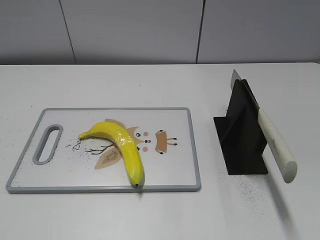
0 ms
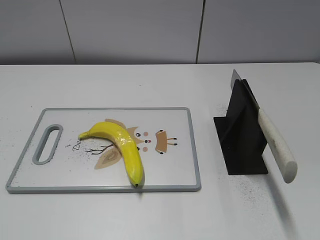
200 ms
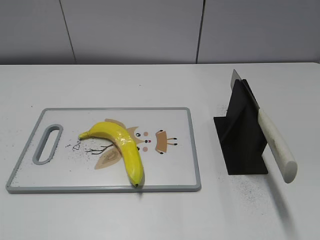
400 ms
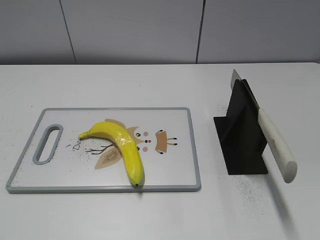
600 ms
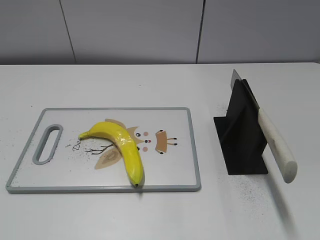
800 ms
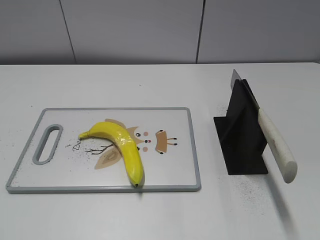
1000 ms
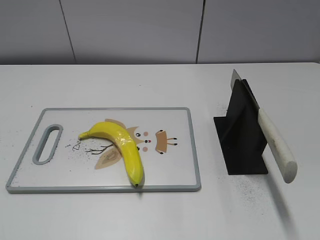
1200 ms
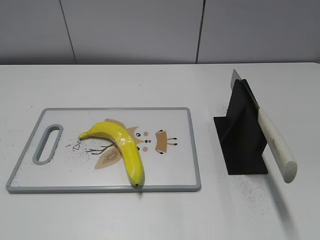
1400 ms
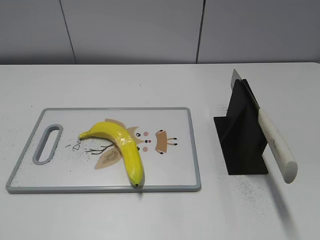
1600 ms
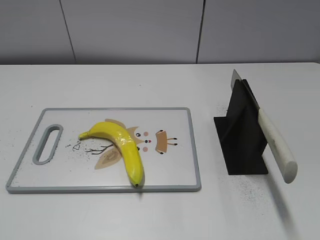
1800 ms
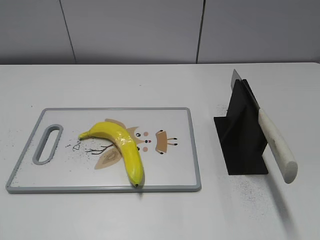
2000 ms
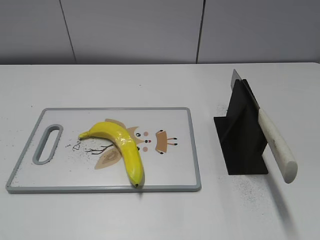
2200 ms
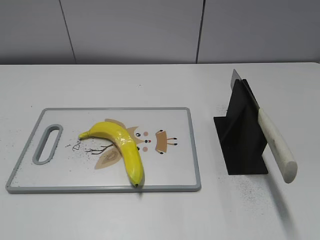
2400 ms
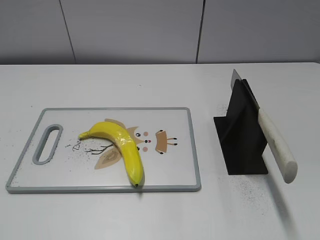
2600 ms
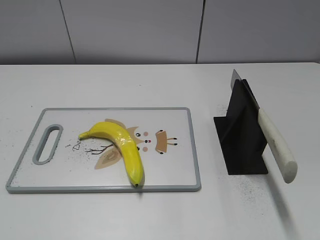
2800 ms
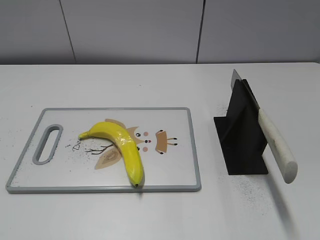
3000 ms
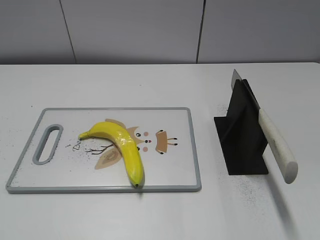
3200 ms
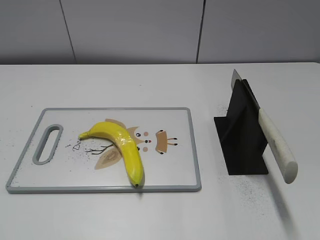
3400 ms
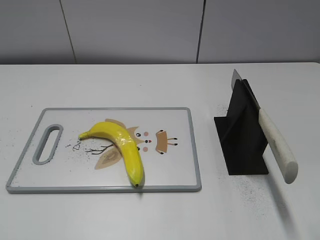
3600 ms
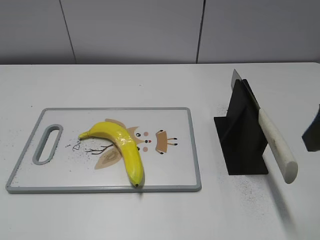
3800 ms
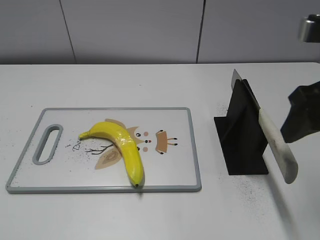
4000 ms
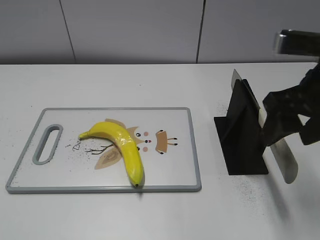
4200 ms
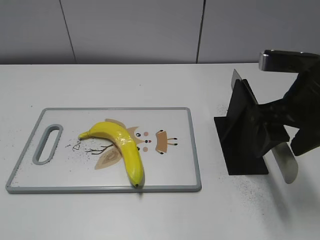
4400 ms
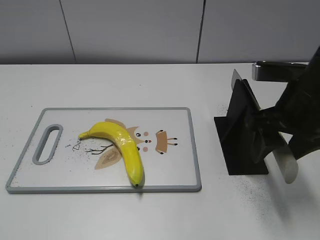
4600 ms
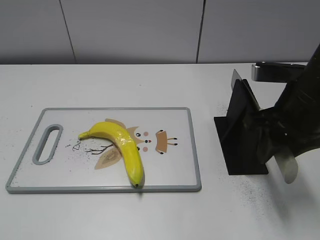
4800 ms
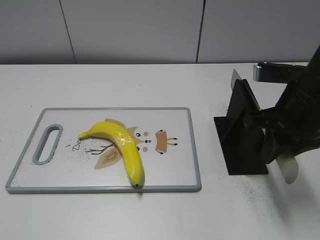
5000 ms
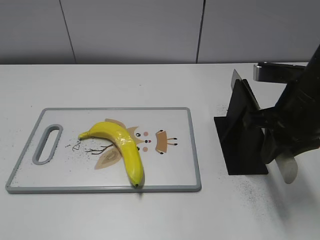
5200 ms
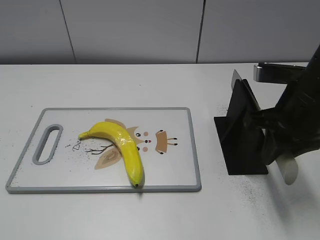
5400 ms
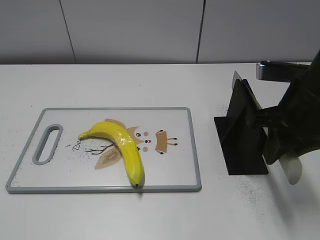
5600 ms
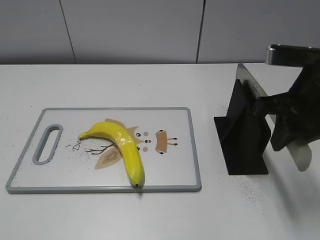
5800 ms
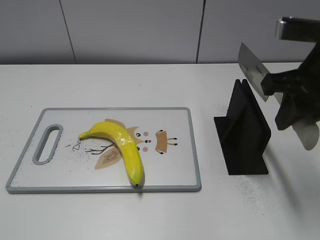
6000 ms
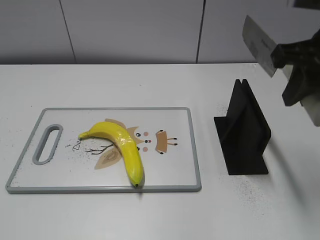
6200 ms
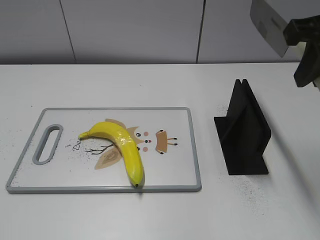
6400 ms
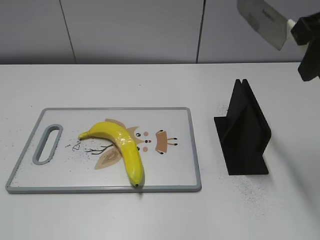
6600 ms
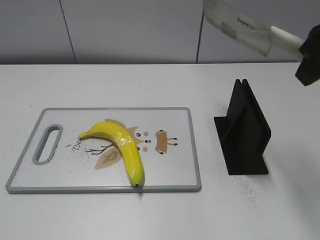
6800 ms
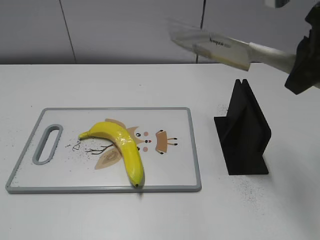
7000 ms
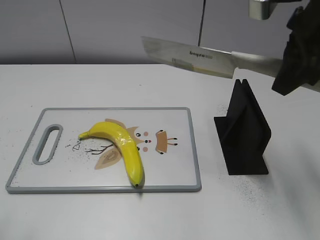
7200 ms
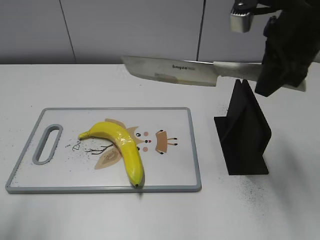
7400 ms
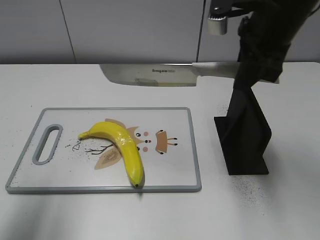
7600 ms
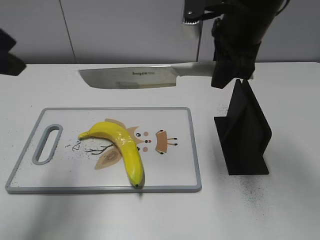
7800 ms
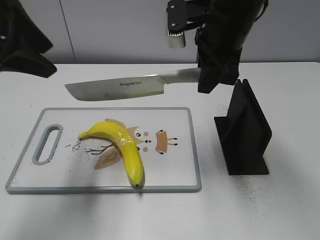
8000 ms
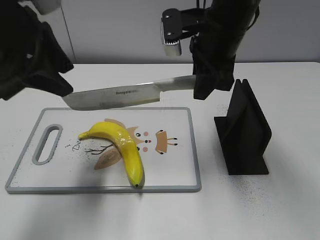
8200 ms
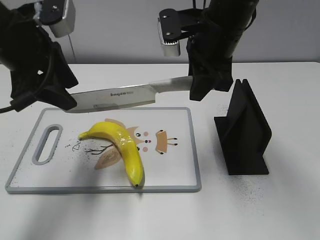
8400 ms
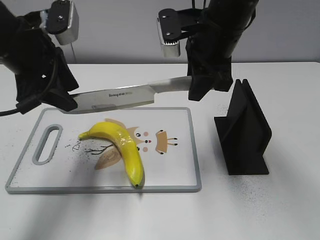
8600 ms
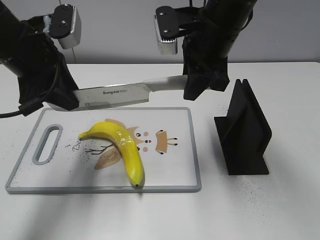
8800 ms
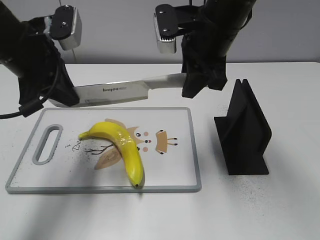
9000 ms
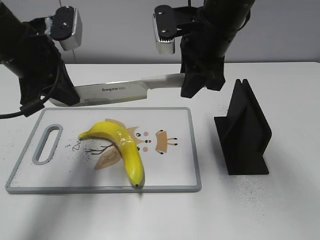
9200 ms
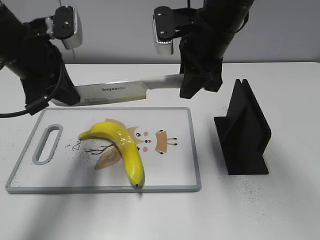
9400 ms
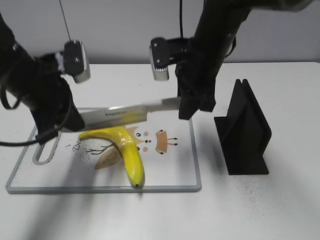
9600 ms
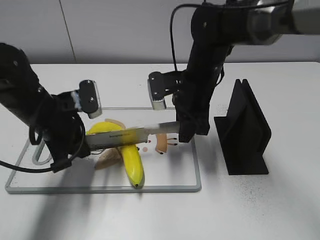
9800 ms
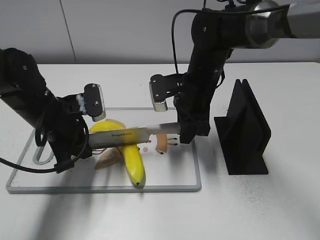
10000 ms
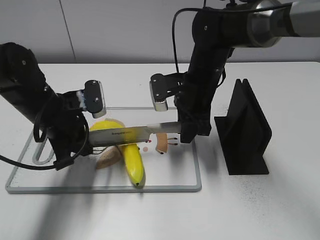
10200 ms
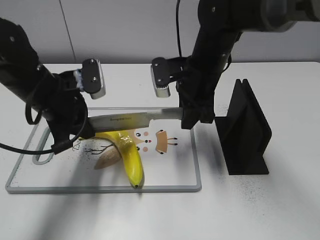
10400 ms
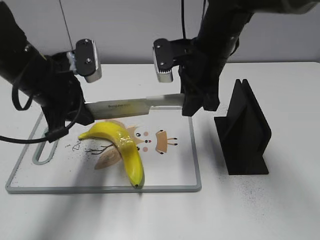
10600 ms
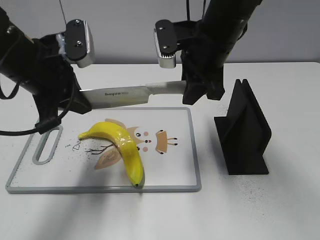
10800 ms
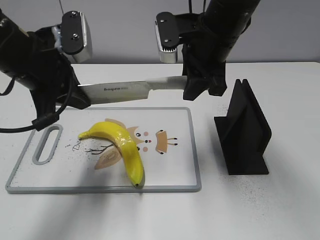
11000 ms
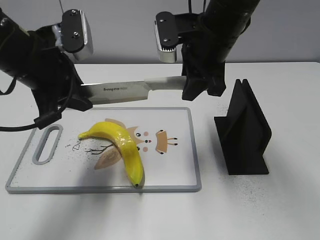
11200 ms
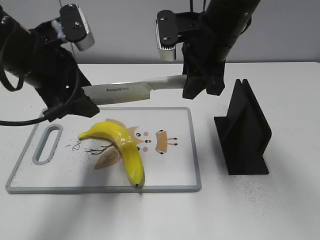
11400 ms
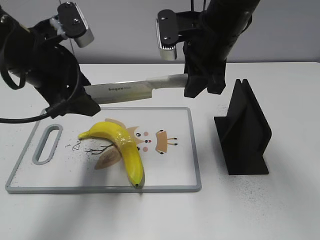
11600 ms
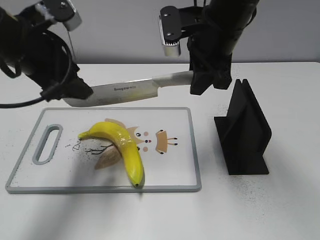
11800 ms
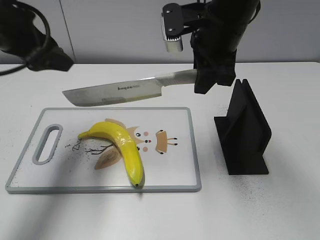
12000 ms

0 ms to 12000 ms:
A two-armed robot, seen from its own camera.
Task of the whole recording: cut plastic banana.
Step, 0 ms to 6200 ms: Grab the knife handle with your right hand.
Step, 6400 ms to 11200 ms: Lift the knife with your right hand.
3000 ms to 4400 ms: The right gripper shifts some 25 cm forward, downward and to the left.
4400 ms to 6000 ms: The right gripper closes.
6000 ms to 7600 ms: The left gripper moves forward, about 20 cm. Meanwhile the right gripper moves forward and to the left, approximately 10 cm.
7600 ms to 9000 ms: The right gripper travels to the left by some 5 cm. The left gripper moves forward, downward and to the right, about 15 cm, and closes.
9000 ms to 10400 ms: Both grippers move downward, roughly 10 cm.
10400 ms to 12000 ms: The left gripper travels upward and to the left by about 15 cm, and opens up, while the right gripper is displaced upward by about 10 cm.

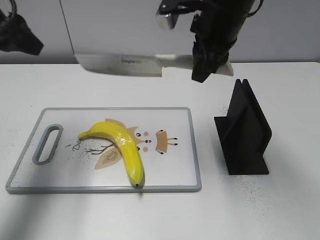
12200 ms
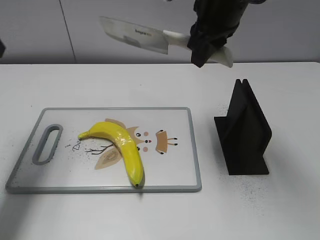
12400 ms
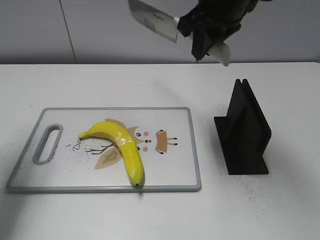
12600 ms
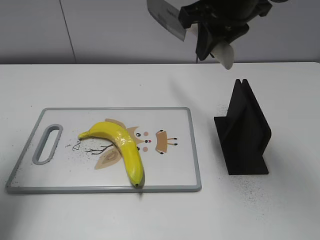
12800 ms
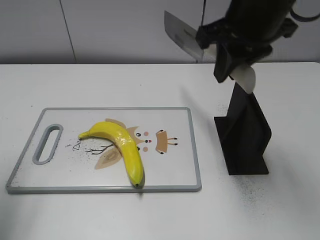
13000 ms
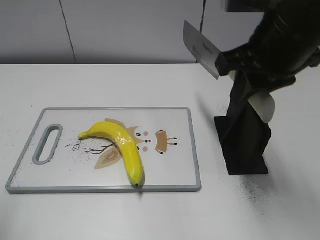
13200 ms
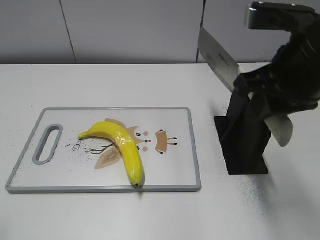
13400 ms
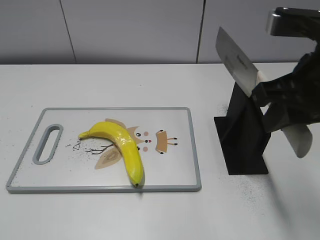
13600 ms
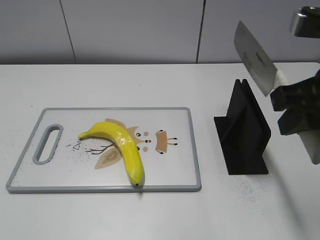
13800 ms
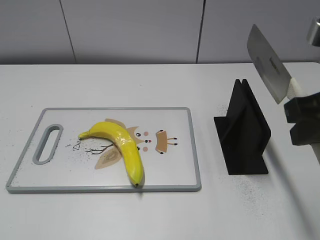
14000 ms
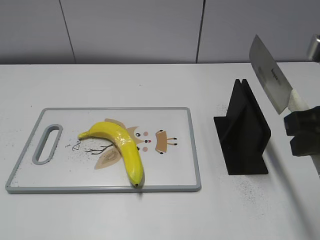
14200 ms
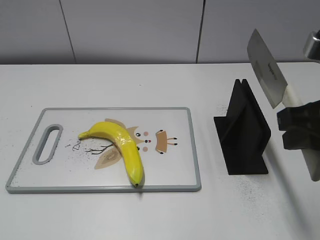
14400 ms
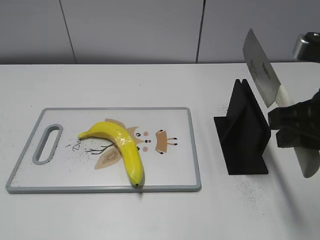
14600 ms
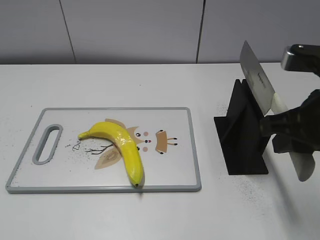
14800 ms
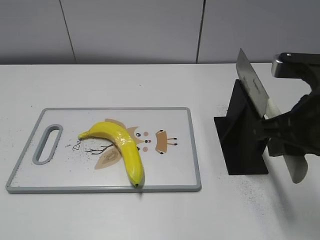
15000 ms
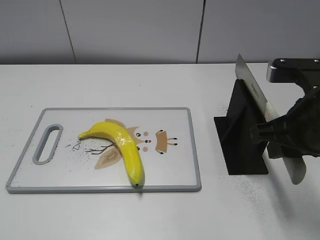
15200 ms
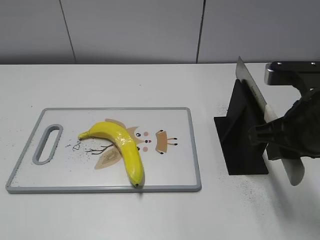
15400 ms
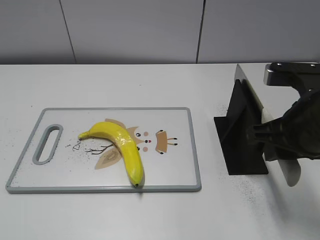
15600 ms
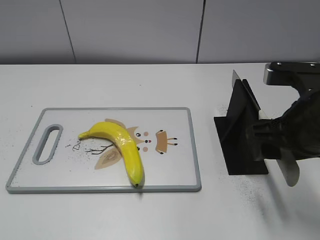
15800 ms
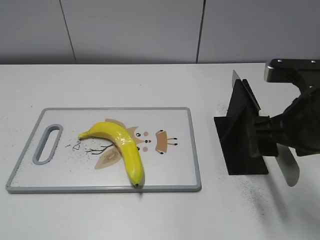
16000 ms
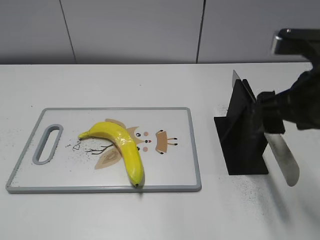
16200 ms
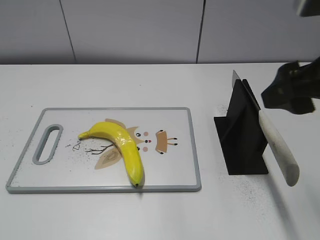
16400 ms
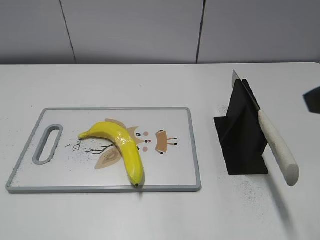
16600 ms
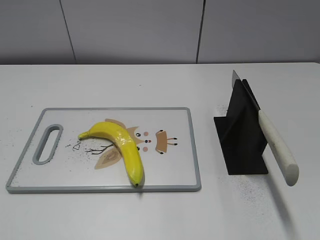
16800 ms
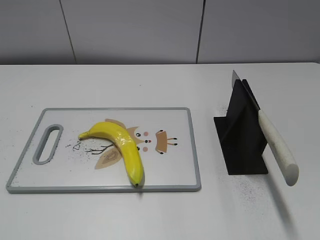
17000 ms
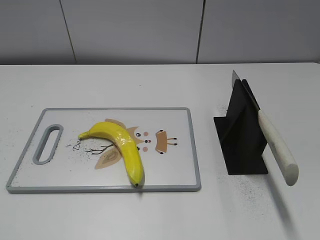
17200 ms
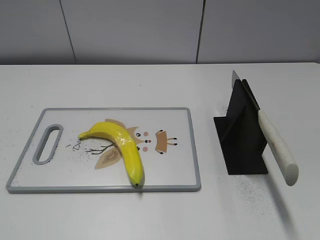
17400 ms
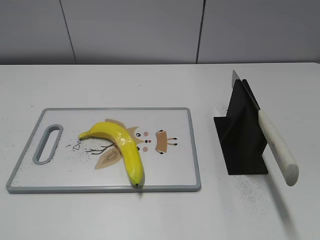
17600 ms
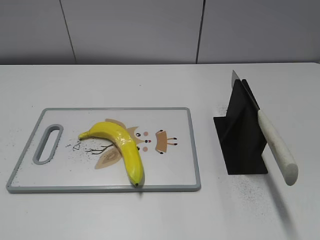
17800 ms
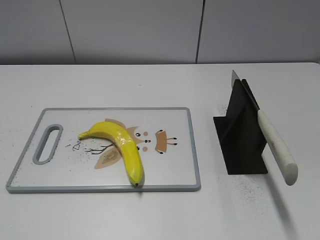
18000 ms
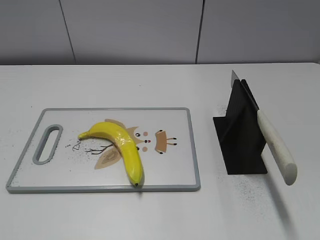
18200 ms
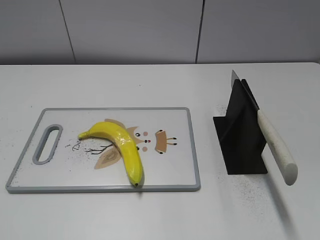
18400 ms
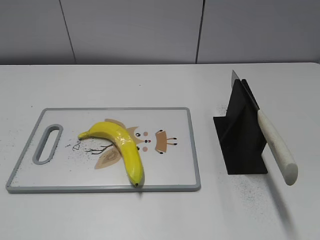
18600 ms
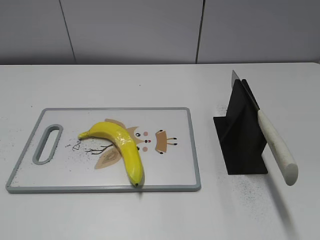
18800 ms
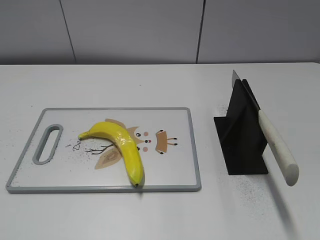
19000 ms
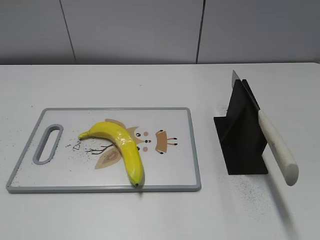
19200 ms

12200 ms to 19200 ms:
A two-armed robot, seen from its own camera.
Task of the whole recording: cut plastic banana.
Step, 12600 ms to 14000 ms: Lift the knife with your right hand.
Step, 14200 ms to 19200 ms: Place the knife on the storage rack with your right hand.
12200 ms to 13600 ms: The right gripper shifts roughly 20 cm backward and to the right. The left gripper goes roughly 25 cm backward.
13600 ms to 15000 ms: The right gripper travels downward by about 5 cm.
15000 ms to 16400 ms: The right gripper travels upward by about 10 cm, and opens up.
16400 ms to 17800 ms: The right gripper moves backward and to the right, approximately 20 cm.
